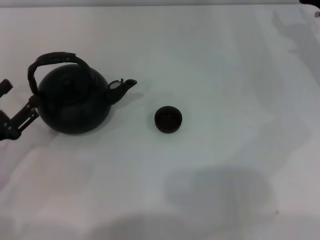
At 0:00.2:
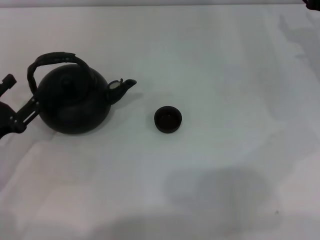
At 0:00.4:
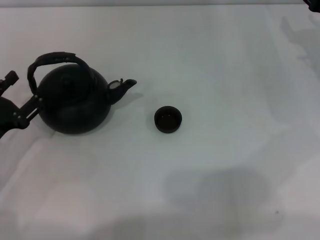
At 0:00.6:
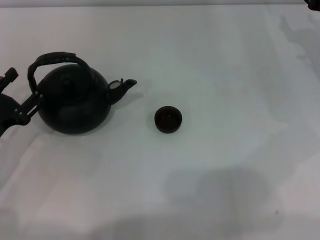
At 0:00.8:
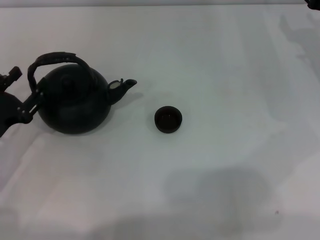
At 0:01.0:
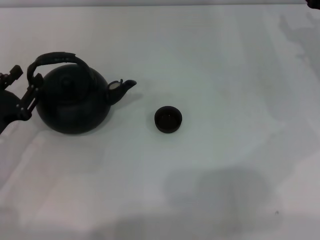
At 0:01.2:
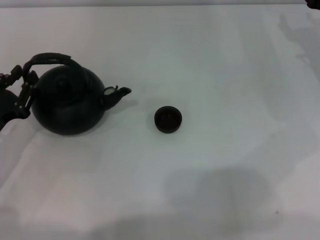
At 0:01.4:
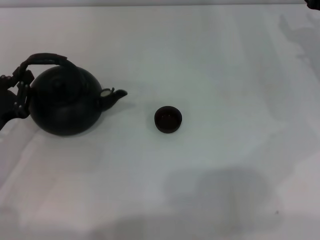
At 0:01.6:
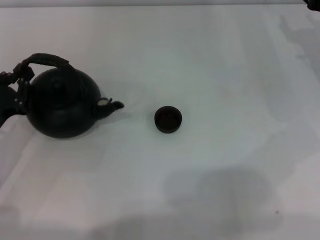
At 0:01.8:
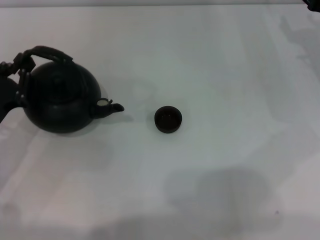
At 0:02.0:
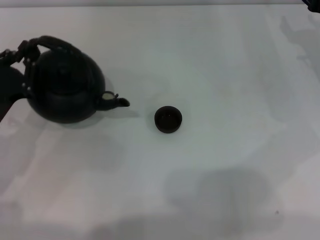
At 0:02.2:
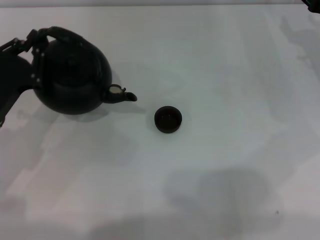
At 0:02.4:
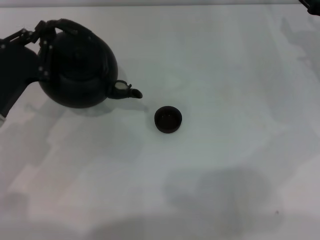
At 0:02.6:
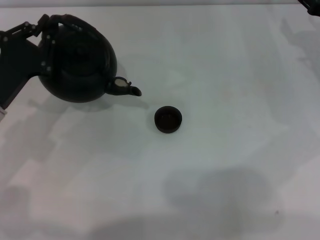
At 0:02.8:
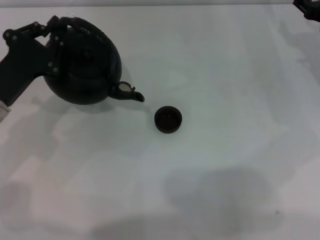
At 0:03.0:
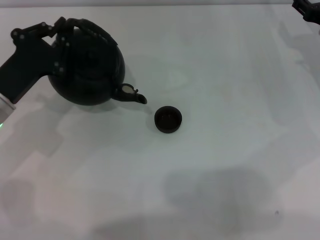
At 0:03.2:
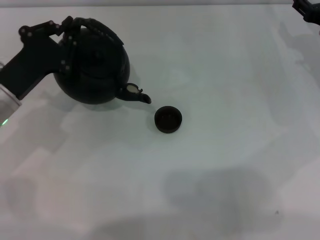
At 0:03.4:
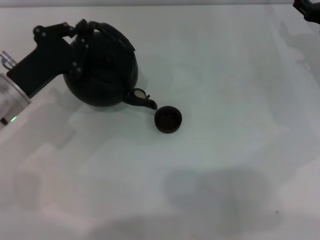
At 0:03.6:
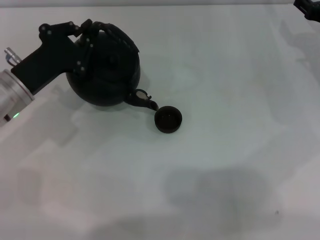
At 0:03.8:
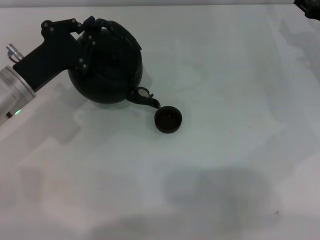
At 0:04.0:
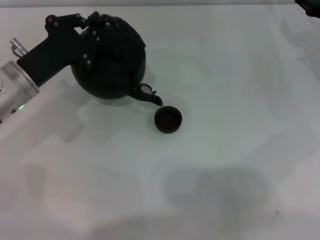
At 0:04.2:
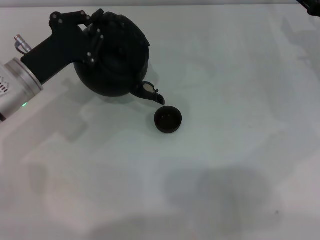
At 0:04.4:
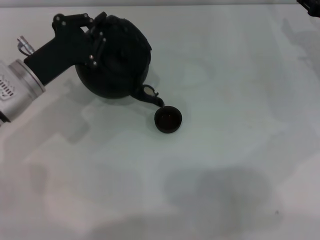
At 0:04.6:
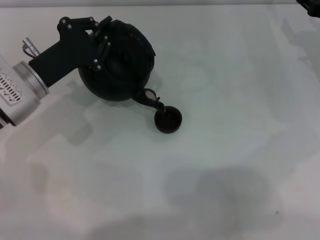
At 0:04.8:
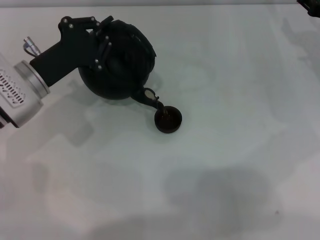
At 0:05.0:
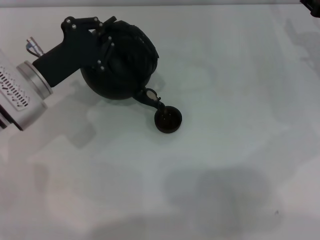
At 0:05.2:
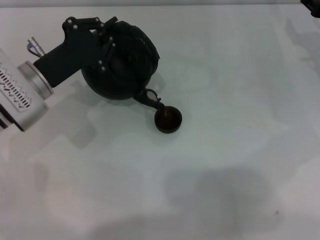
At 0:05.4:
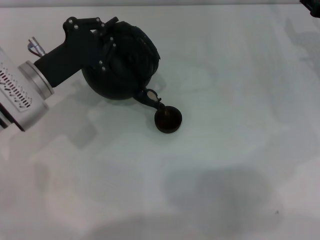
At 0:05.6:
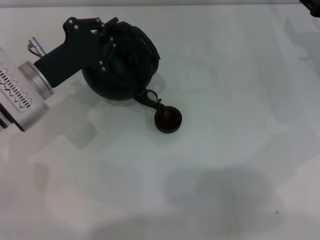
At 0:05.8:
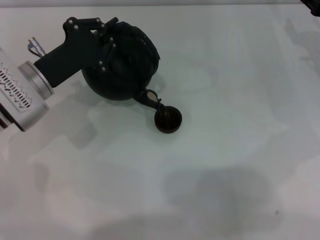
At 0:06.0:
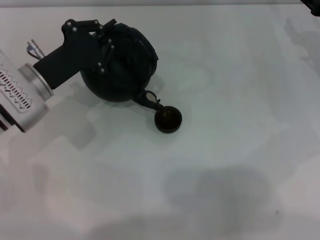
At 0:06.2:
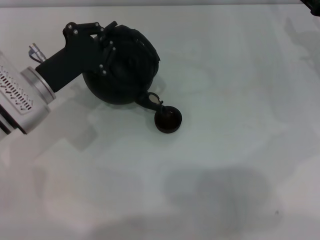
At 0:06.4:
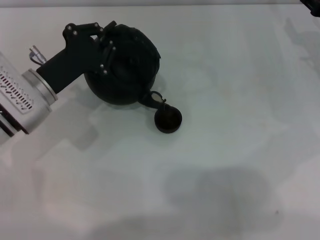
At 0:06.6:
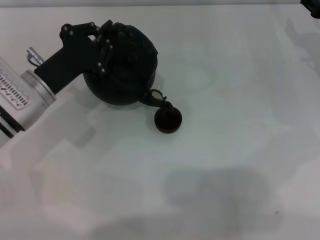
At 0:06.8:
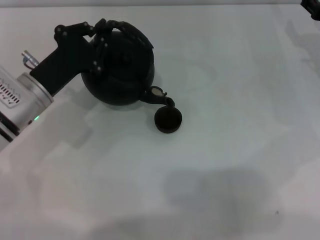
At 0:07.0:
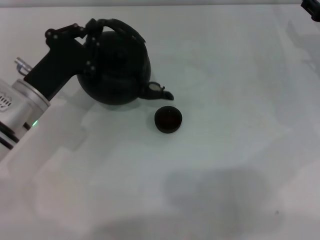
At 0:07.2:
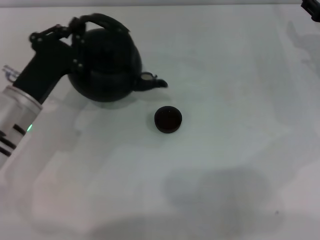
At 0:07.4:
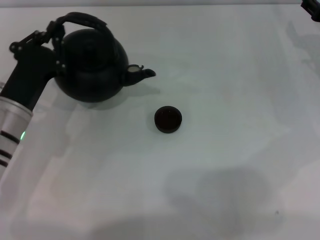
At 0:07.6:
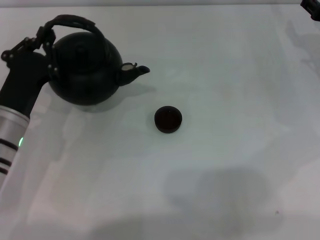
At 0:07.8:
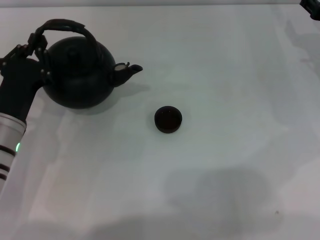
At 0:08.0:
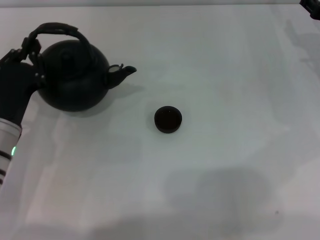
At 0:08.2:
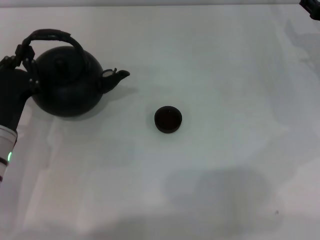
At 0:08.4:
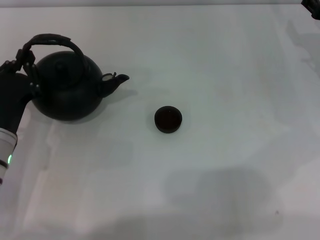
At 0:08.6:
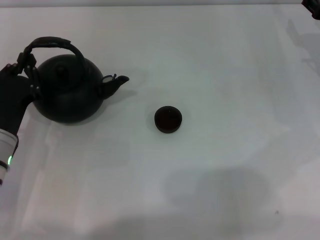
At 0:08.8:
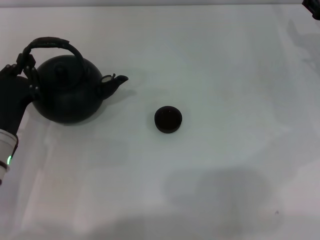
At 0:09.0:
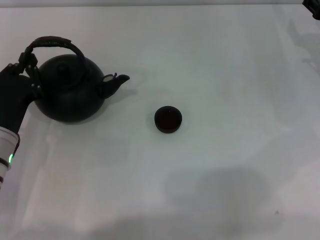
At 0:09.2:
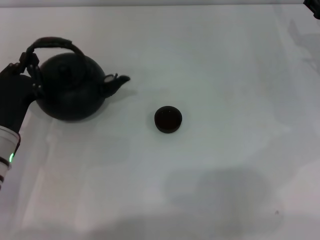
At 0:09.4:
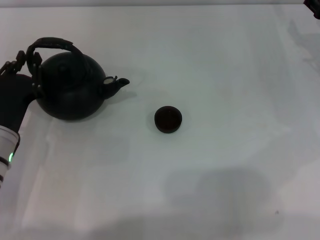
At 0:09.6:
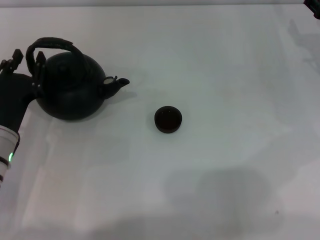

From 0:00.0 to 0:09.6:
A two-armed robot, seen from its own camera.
Task of the whole recording: Grasp the handle of the teapot with one hand and pour tea into the teacup.
Step, from 0:00.0 to 0:02.2: Pick up the teapot with the left gripper.
Step, from 0:02.4 to 0:07.0: Pour tea into the teacup with the left gripper.
From 0:00.0 to 0:01.6: The left gripper closes its fingers.
From 0:01.6 to 0:03.2: The left gripper travels forward by roughly 5 cm.
From 0:03.2 to 0:06.4: The grippers make only small movements.
From 0:06.4 to 0:08.0: The left gripper is displaced backward by about 5 cm.
From 0:08.0 to 0:09.6: The grippers move only a little.

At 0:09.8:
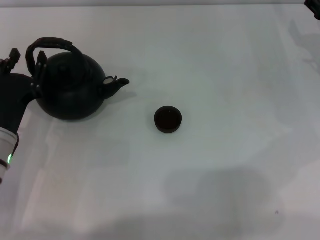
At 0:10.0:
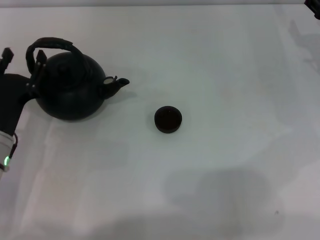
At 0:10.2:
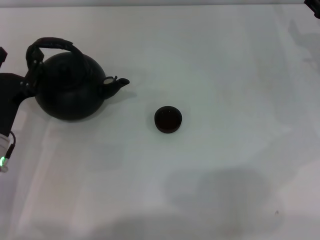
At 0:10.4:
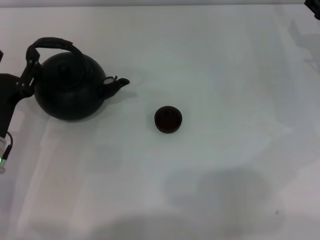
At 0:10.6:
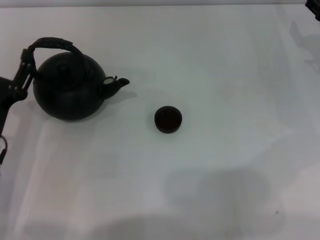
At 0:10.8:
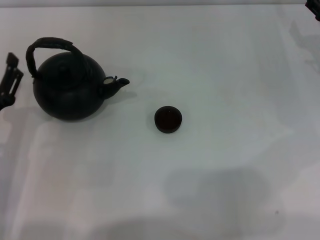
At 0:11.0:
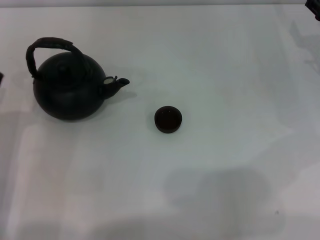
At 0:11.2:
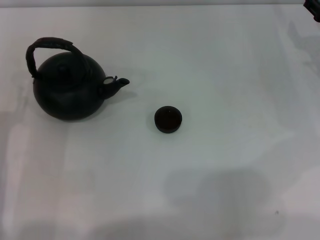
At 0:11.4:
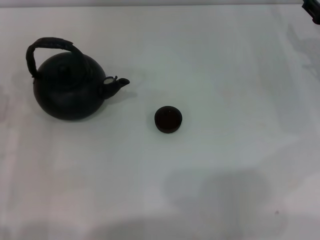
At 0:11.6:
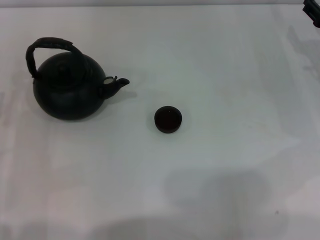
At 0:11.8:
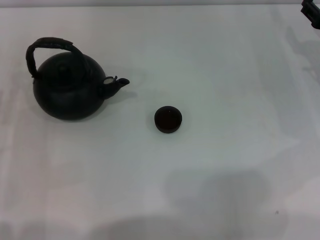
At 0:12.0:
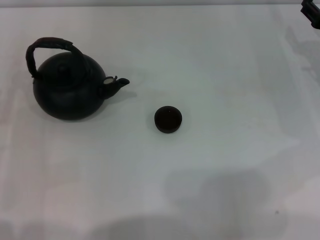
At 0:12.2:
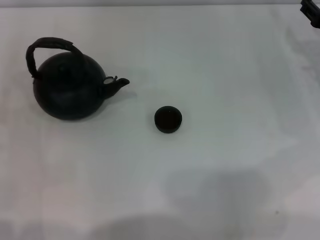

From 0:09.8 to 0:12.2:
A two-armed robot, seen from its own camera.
Task of the whole recording: Grasp the handle of the teapot with one hand and pour tea into the teacup.
From 0:09.8 to 0:11.0: The left gripper shifts by roughly 5 cm, and opens.
